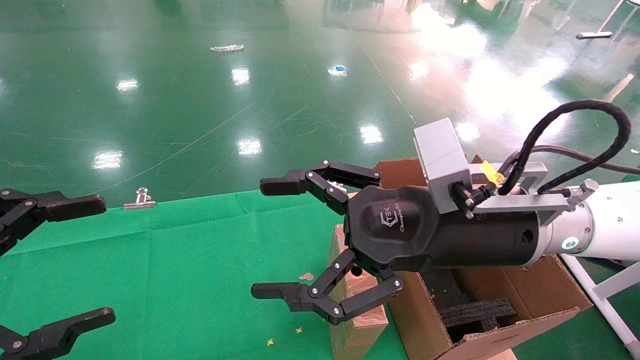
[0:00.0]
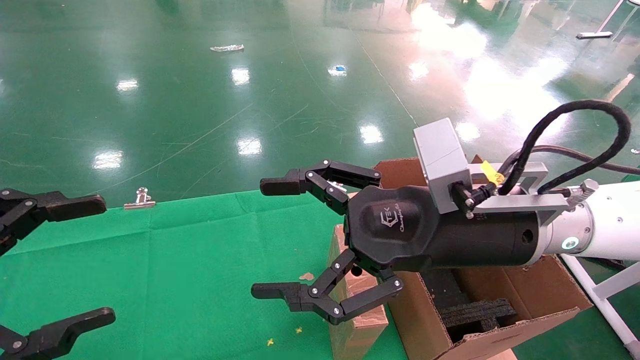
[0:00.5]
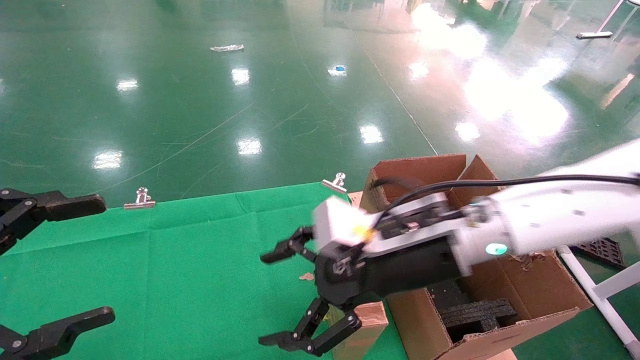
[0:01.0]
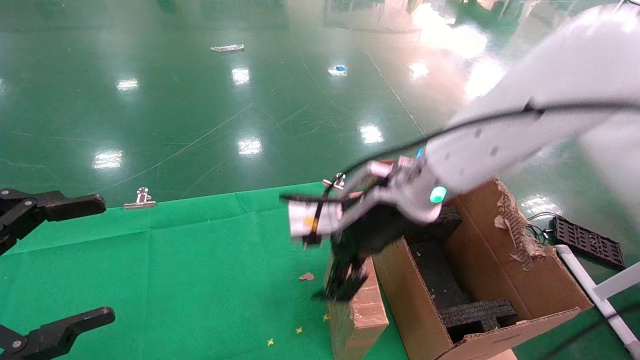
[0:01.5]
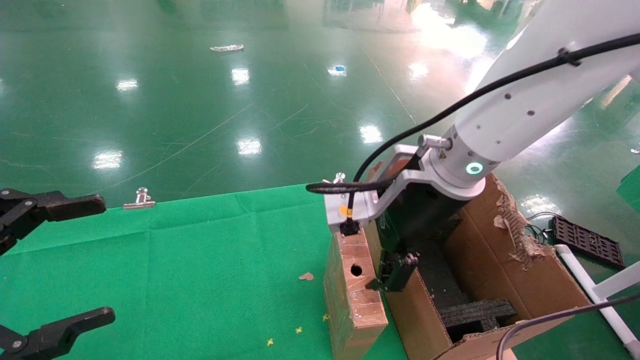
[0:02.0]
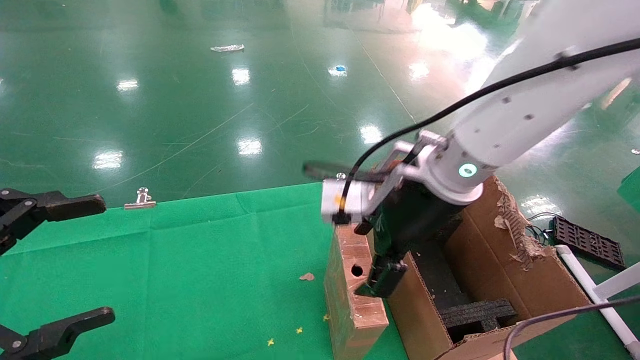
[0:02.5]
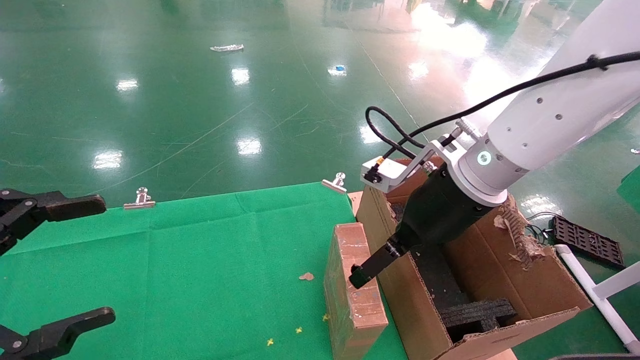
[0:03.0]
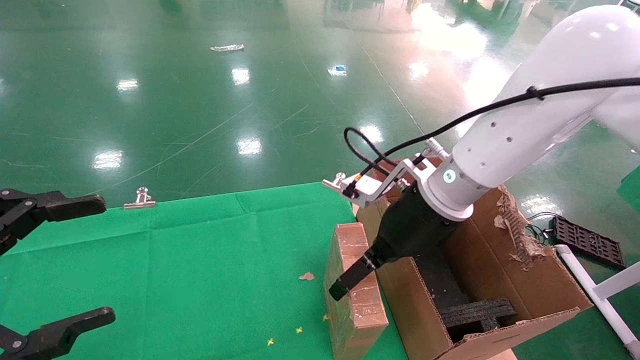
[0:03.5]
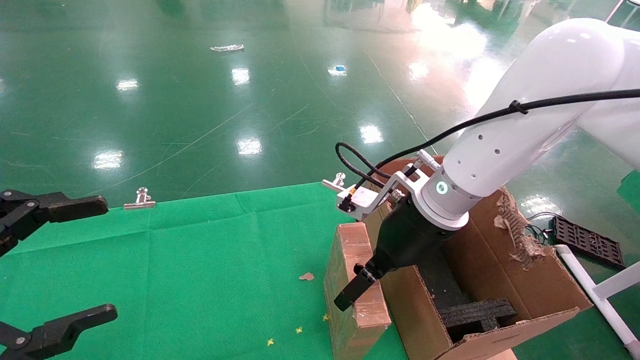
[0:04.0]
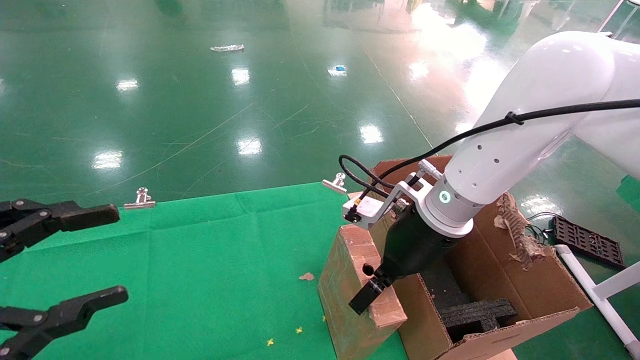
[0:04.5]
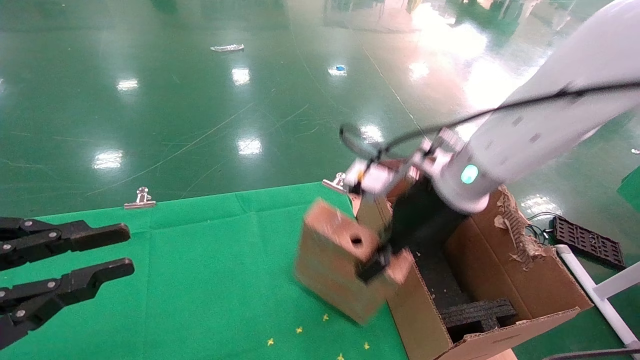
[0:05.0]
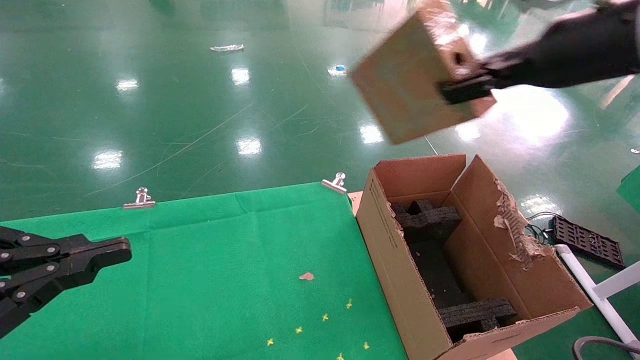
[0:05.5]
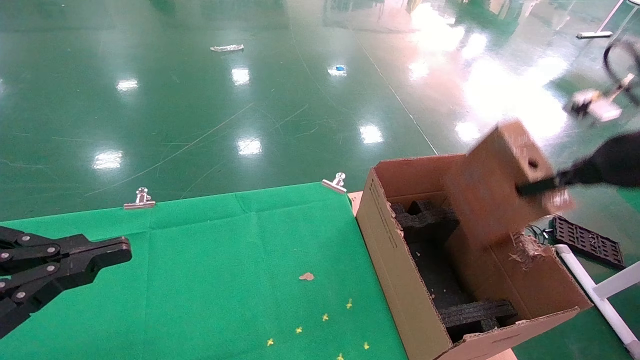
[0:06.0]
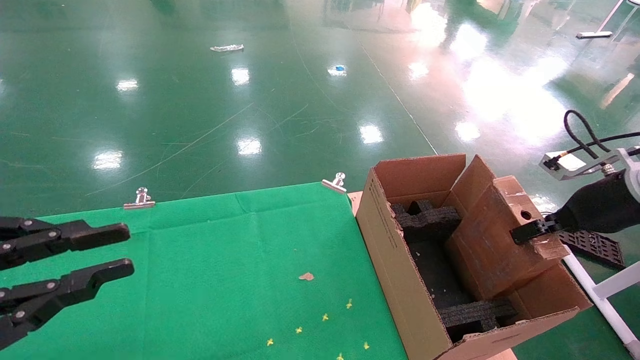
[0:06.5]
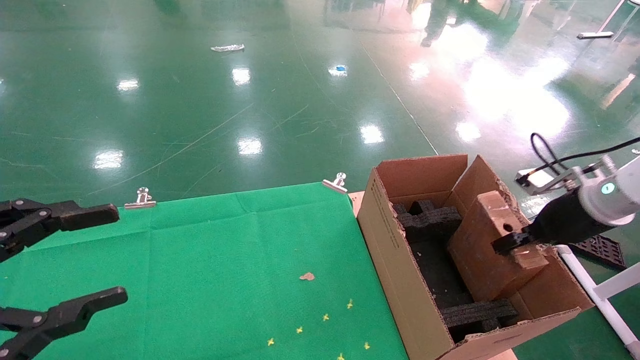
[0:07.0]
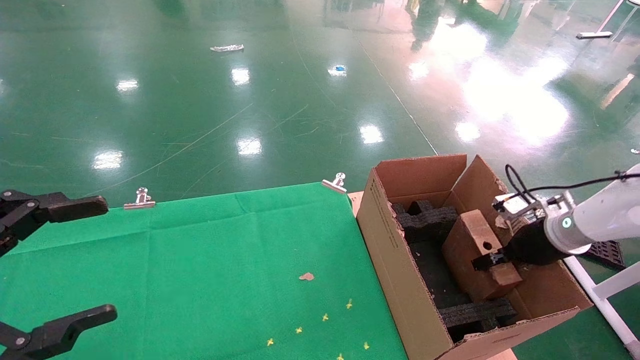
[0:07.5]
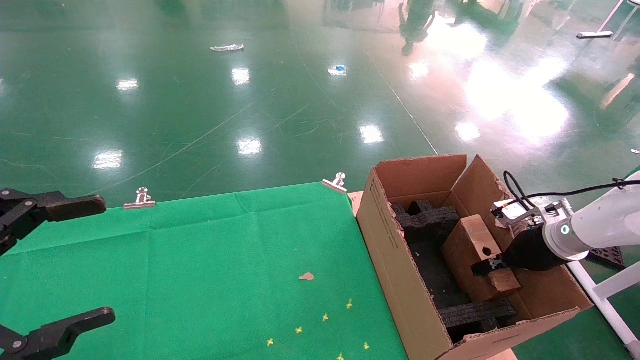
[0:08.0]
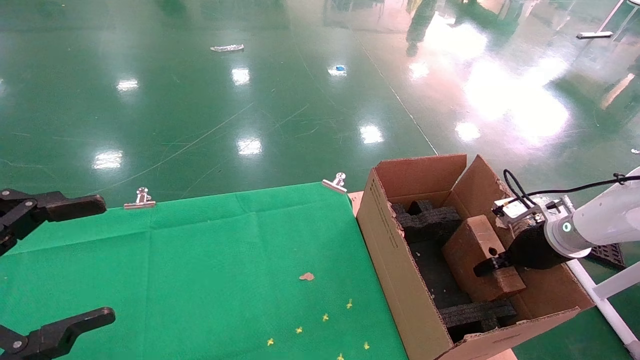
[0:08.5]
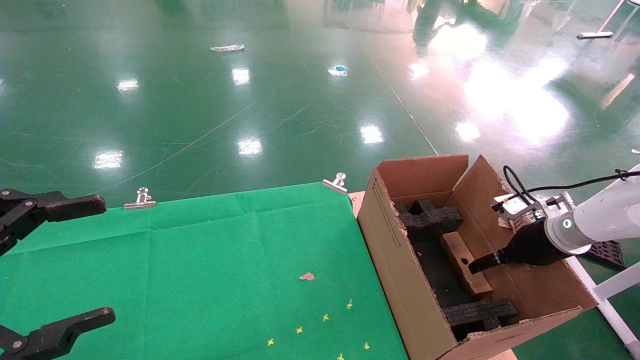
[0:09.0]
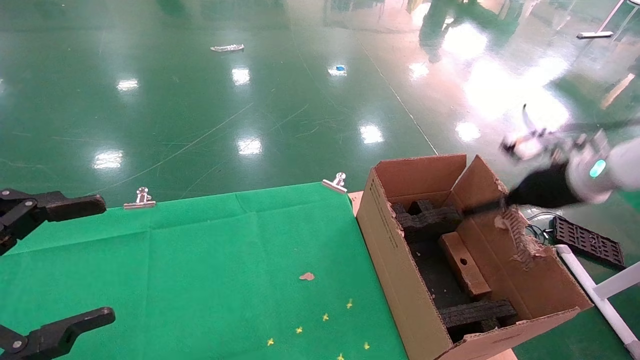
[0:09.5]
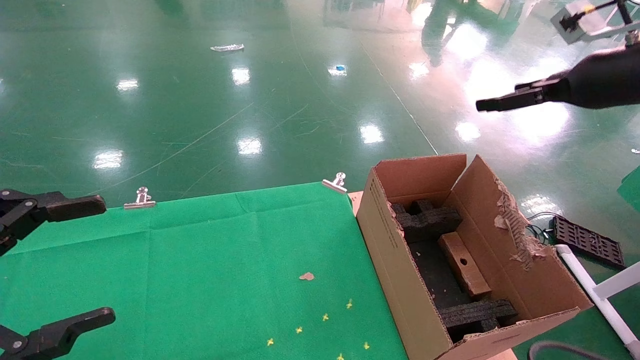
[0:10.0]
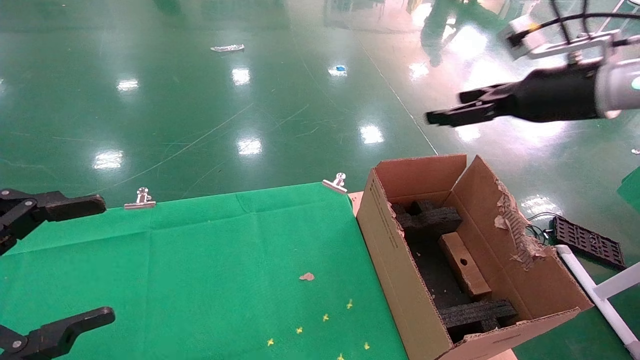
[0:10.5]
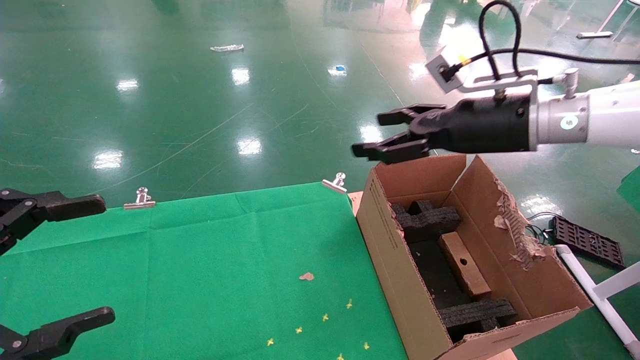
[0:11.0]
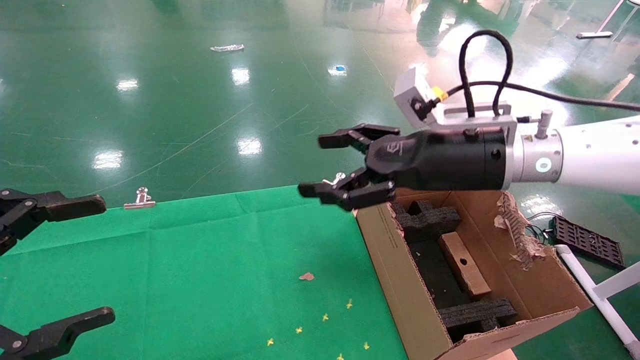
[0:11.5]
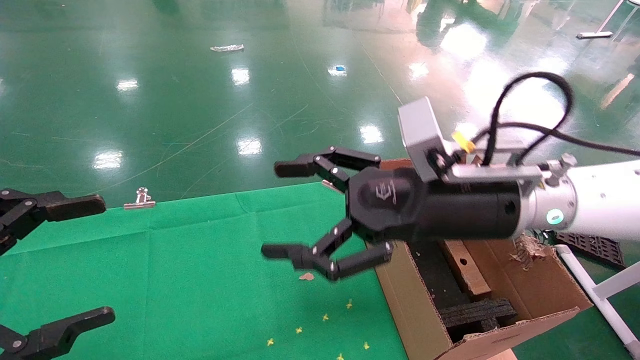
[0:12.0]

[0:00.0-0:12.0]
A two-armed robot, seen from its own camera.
Task of the whole recording: using a robotic arm to pick up a cardboard box and palace it the carton.
Step, 0:01.0 to 0:05.0: Pick up the mouse and the power cord paper box.
Step, 0:05.5 to 0:09.0: Place the mouse and the power cord paper box into the container.
0:00.0 to 0:02.0: The right gripper is displaced forward by approximately 5 cm.
0:02.0 to 0:04.0: The right gripper goes roughly 5 cm downward.
0:04.0 to 0:06.0: The right gripper moves to the right, approximately 25 cm, and closes. The left gripper closes its fingers.
0:06.0 to 0:08.0: The right gripper moves downward and forward, some 20 cm; the left gripper opens its fingers.
0:08.0 to 0:10.0: The right gripper goes approximately 25 cm upward, and opens up.
0:10.0 to 0:12.0: The right gripper moves to the left and downward, some 25 cm.

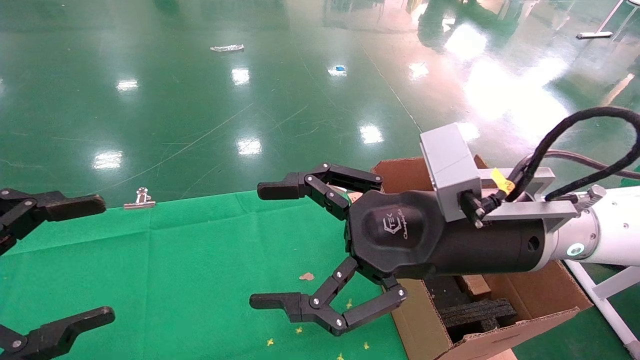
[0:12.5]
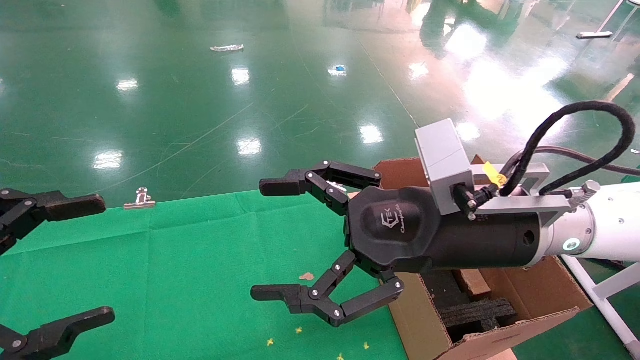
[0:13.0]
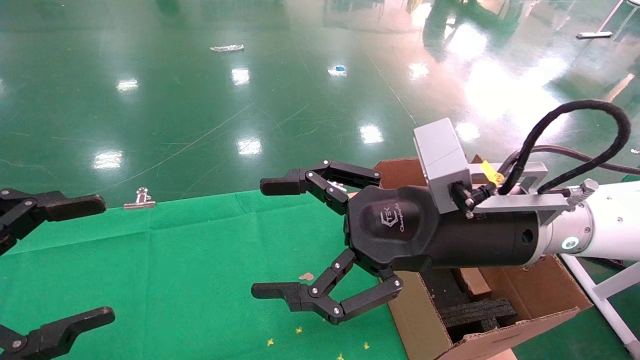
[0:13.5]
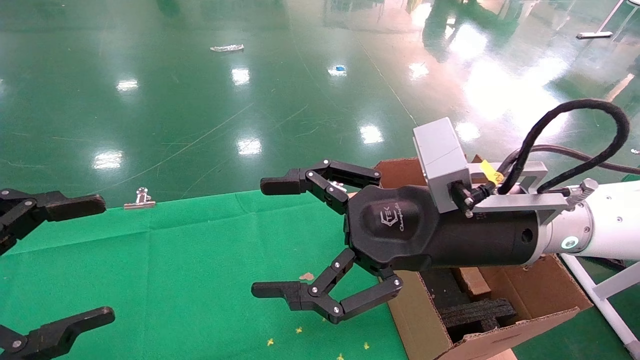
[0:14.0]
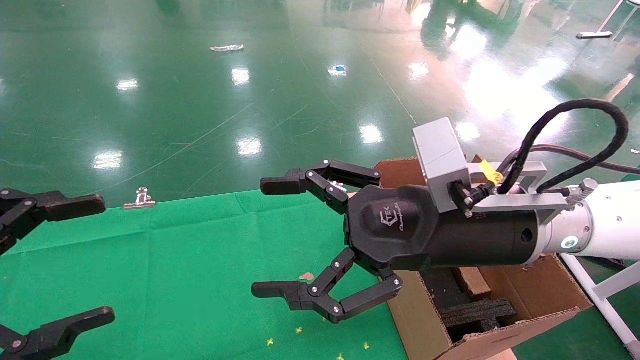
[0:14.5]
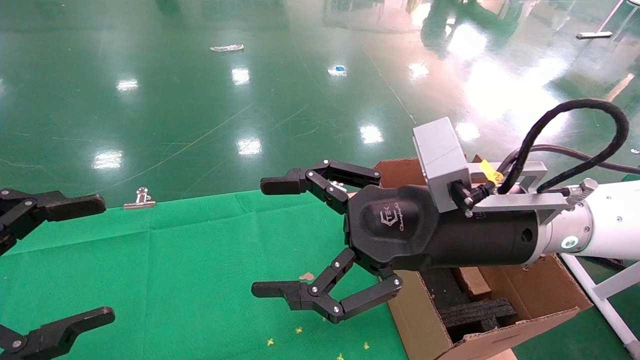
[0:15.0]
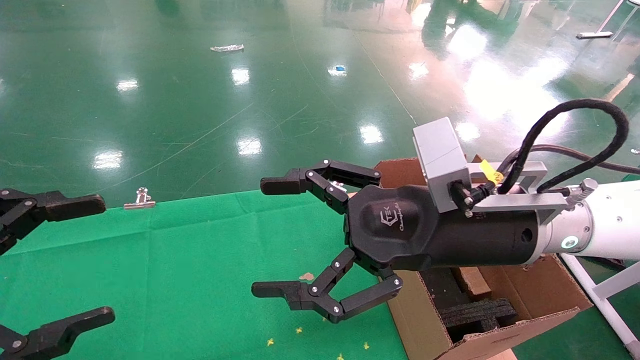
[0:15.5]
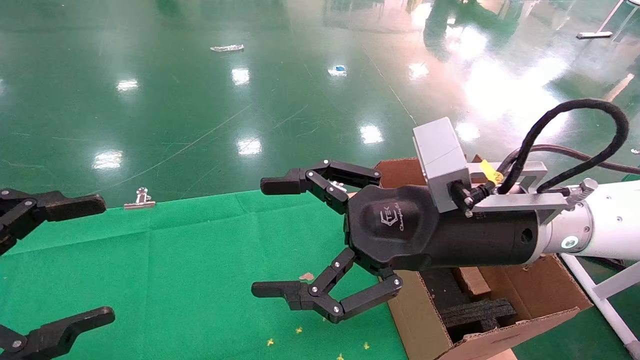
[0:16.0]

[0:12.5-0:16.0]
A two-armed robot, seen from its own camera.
Task of the whole recording: using a robotic arm to pick up a cardboard box and palace it the carton.
0:12.5 to 0:16.0: Neither gripper changes place.
